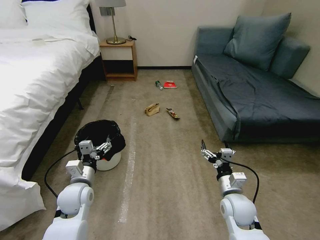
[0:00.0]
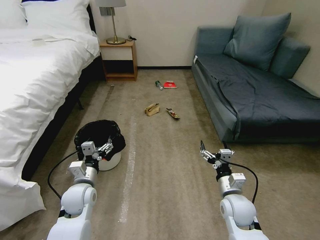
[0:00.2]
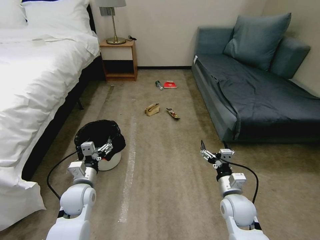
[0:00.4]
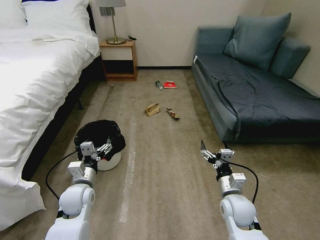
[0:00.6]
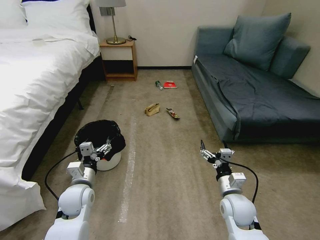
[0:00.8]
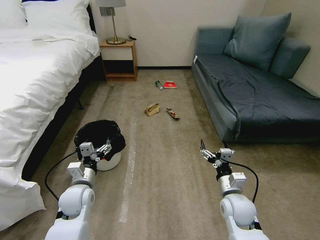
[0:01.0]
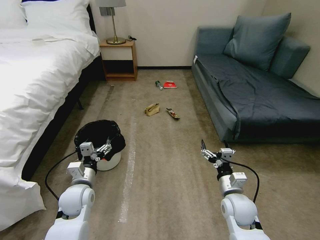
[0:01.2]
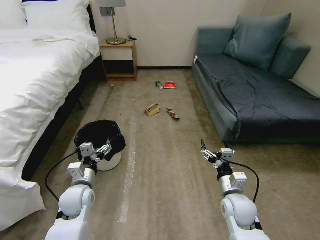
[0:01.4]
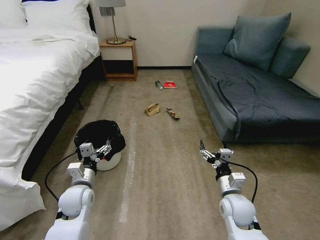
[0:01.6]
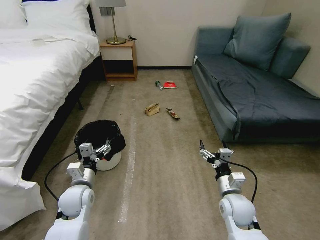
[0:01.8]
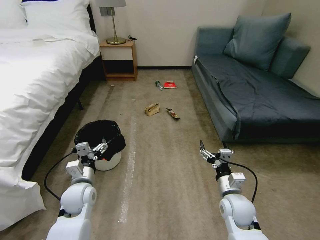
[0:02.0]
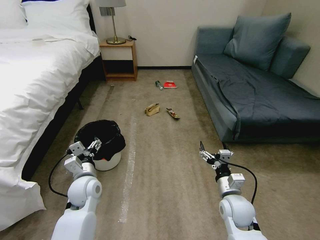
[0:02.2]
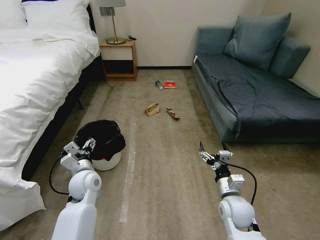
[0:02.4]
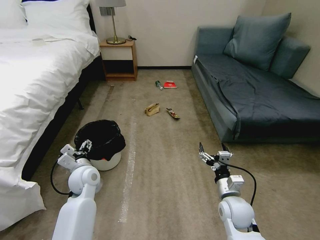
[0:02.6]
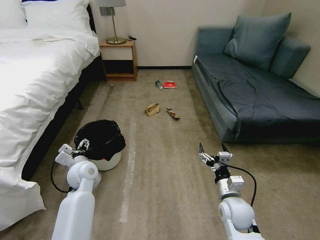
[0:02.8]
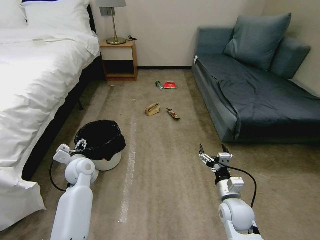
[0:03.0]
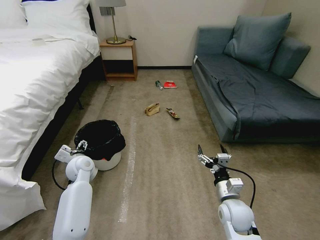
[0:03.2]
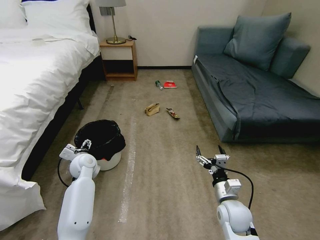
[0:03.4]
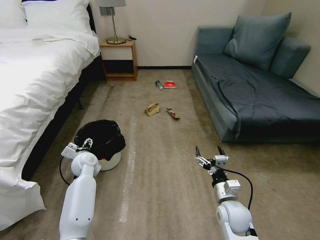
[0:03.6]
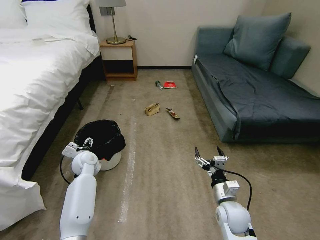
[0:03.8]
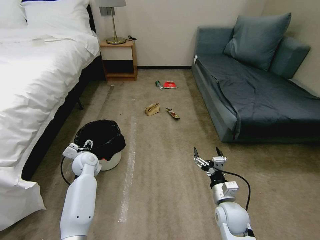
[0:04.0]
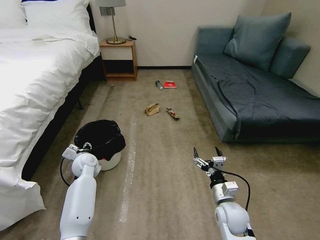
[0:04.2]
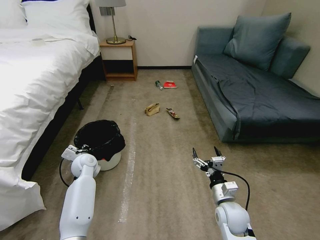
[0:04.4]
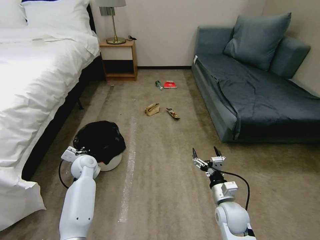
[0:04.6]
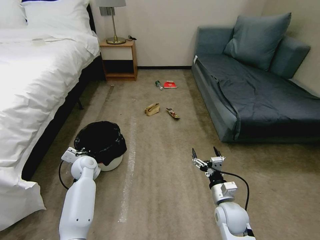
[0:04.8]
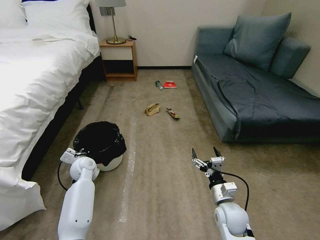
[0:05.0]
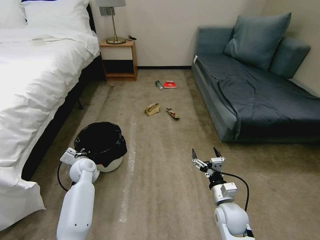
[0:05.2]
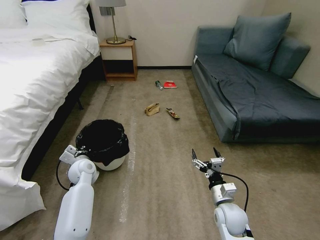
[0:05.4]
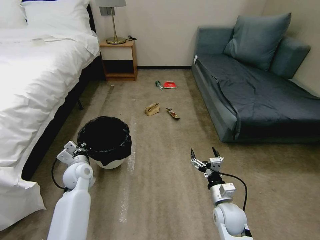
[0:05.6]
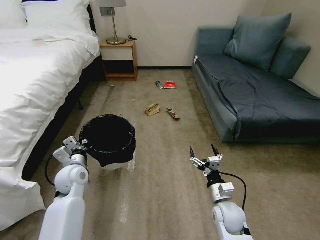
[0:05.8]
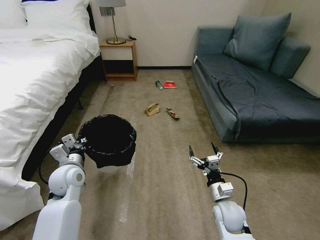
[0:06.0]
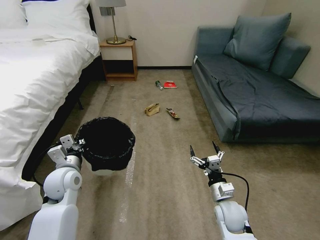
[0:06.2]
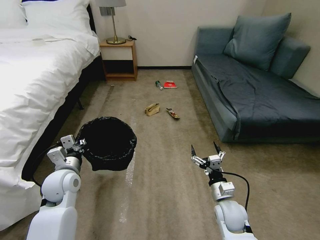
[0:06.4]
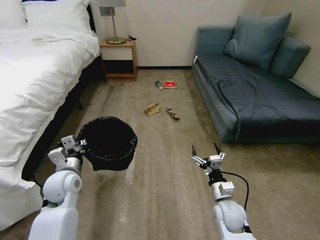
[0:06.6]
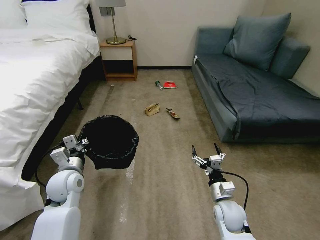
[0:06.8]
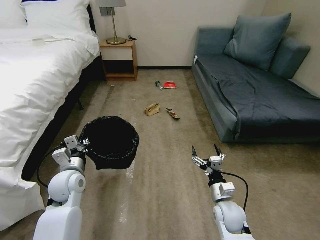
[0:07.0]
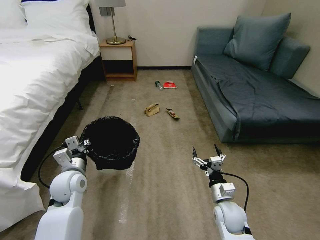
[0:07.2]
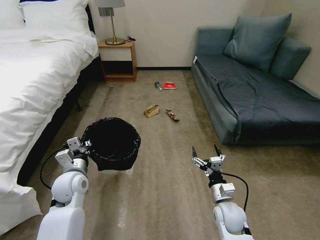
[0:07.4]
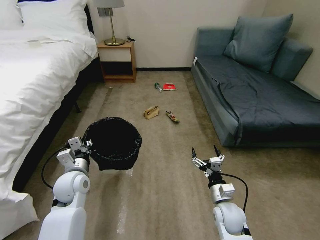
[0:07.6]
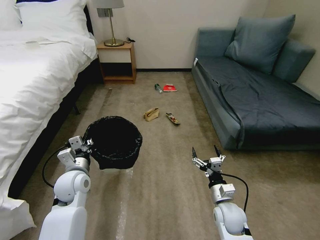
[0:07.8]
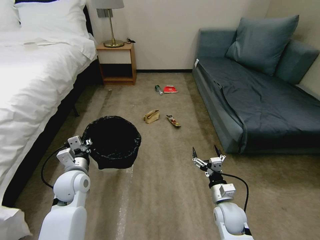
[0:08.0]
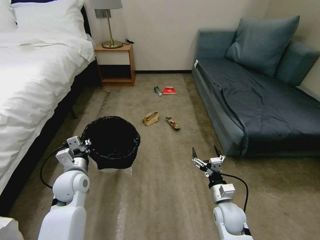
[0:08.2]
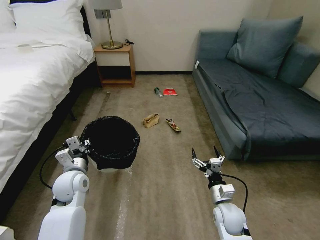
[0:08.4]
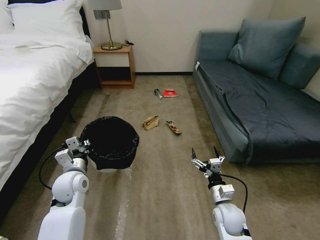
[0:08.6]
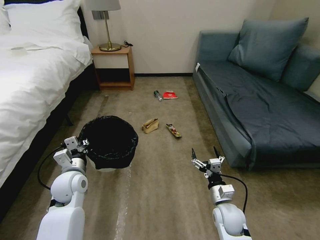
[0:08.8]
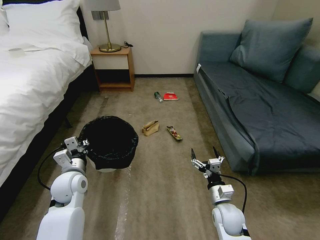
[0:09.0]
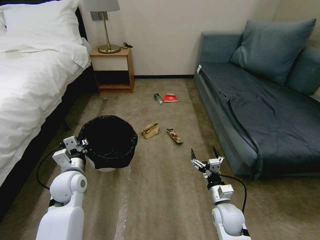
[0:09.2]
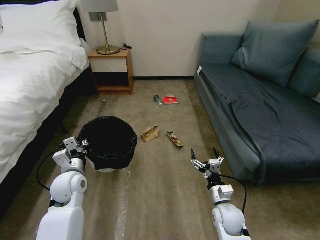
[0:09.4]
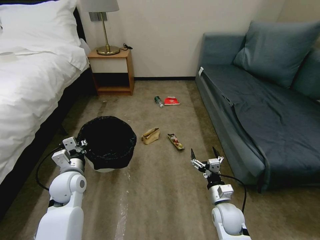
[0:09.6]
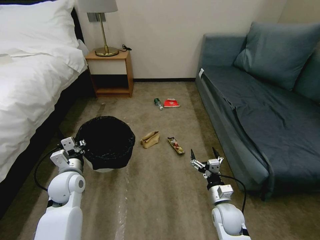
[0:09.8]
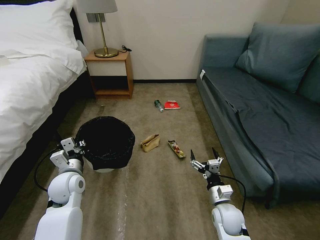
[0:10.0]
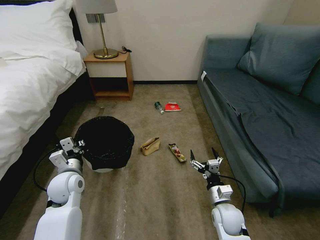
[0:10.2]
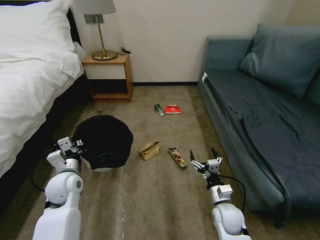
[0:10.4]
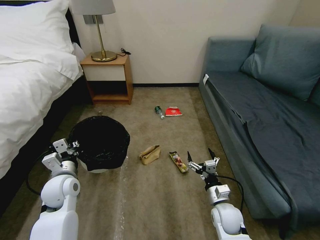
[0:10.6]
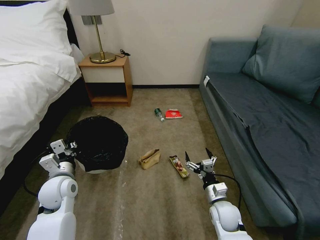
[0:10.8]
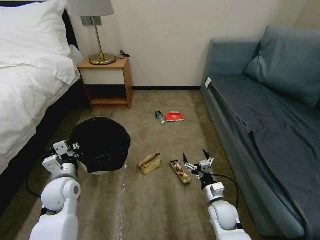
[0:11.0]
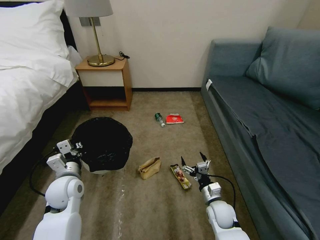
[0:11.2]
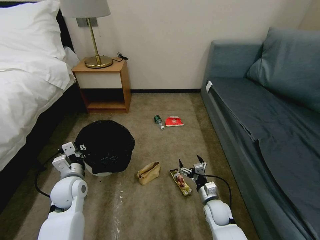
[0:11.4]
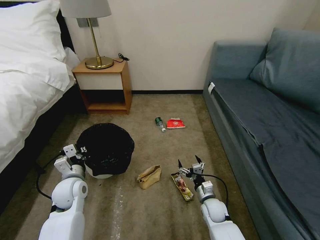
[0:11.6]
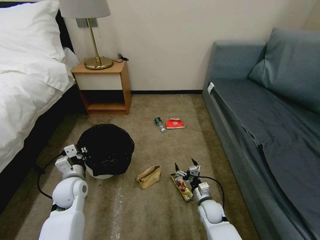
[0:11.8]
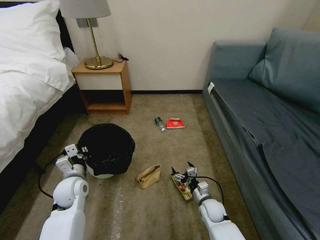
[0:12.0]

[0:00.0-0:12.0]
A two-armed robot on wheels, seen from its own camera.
Task of the whole recording: Pick up the trash bin, then pick up the garbage on the floor and place it into the trash bin.
0:01.6 to 0:03.0: The left gripper shifts some 10 cm forward.
0:03.0 to 0:04.4: The left gripper changes place by some 5 cm, and closes.
0:04.4 to 0:06.0: The left gripper travels backward and upward by roughly 15 cm.
0:06.0 to 0:07.6: The grippers move only a little.
0:10.4 to 0:12.0: The right gripper moves downward, approximately 10 cm.

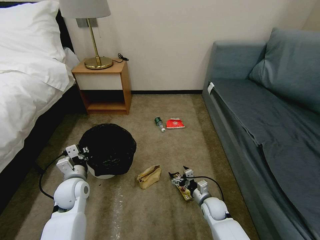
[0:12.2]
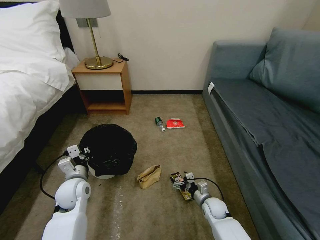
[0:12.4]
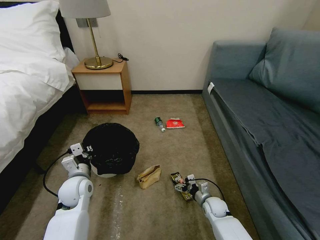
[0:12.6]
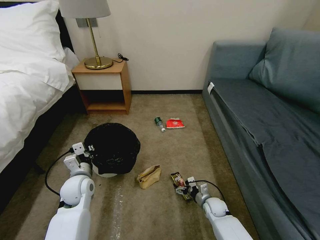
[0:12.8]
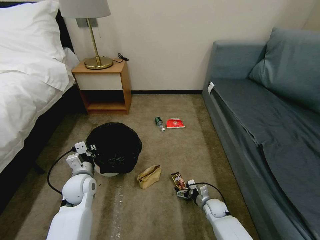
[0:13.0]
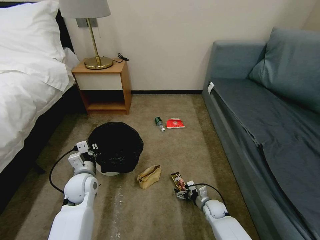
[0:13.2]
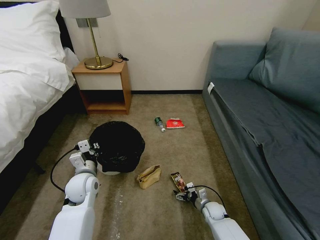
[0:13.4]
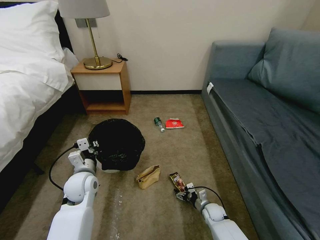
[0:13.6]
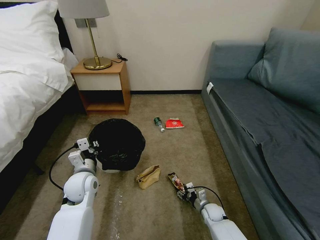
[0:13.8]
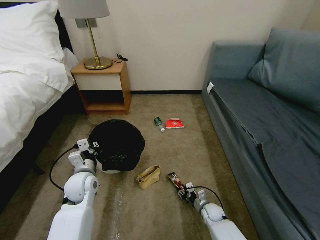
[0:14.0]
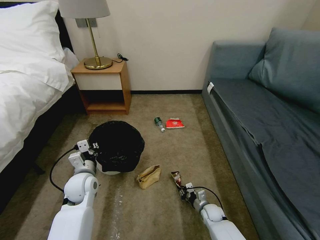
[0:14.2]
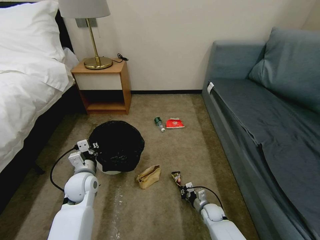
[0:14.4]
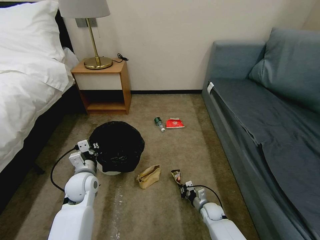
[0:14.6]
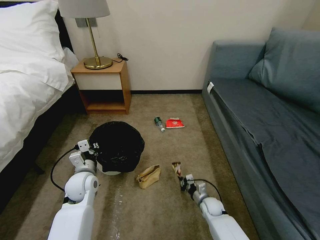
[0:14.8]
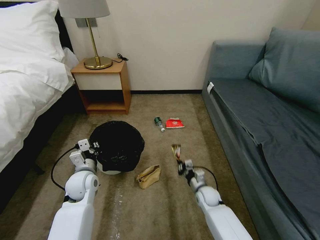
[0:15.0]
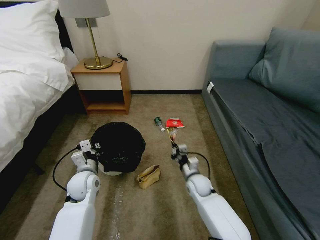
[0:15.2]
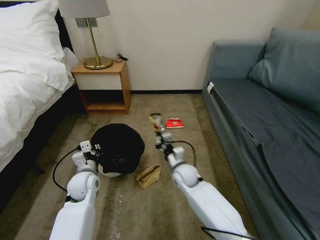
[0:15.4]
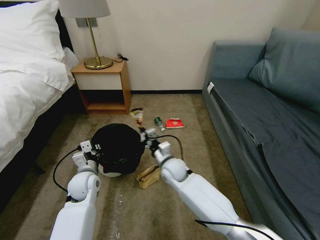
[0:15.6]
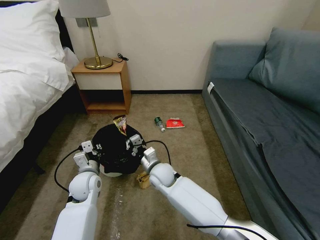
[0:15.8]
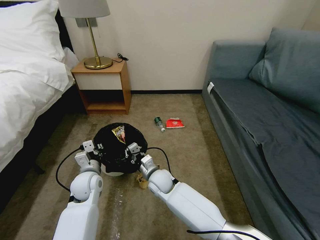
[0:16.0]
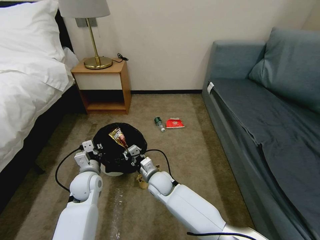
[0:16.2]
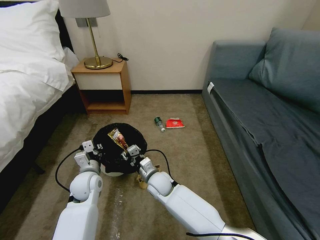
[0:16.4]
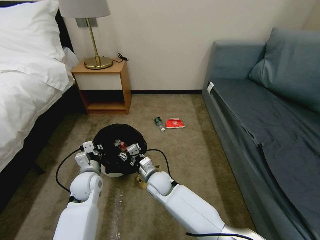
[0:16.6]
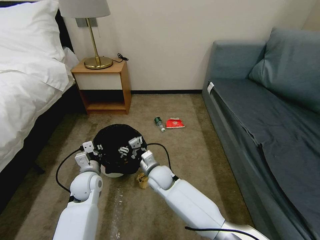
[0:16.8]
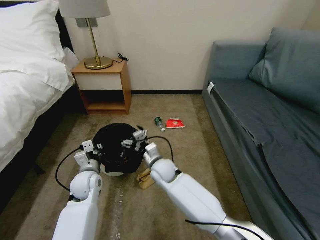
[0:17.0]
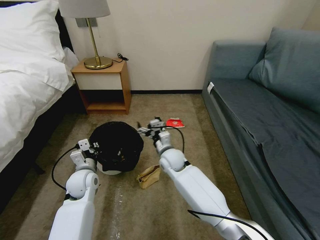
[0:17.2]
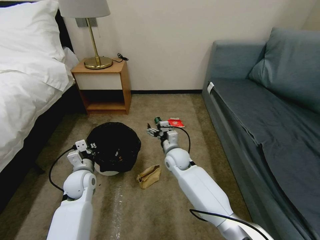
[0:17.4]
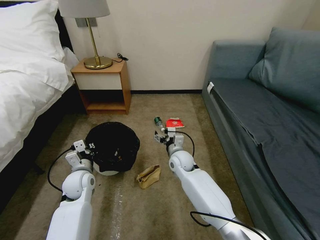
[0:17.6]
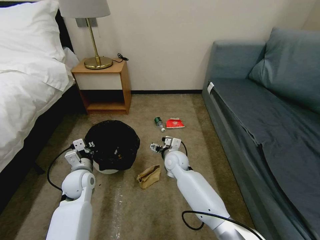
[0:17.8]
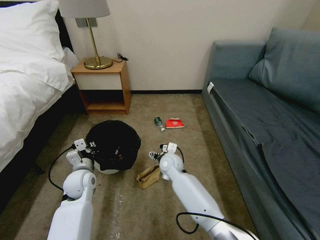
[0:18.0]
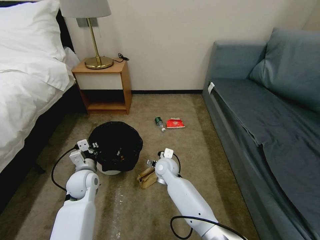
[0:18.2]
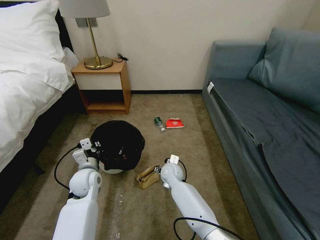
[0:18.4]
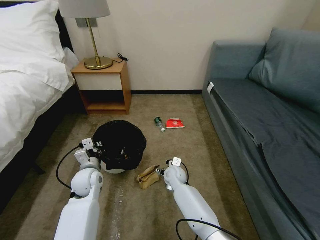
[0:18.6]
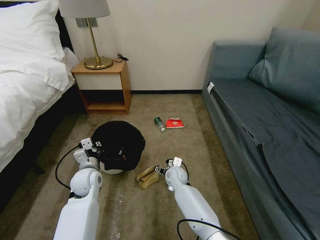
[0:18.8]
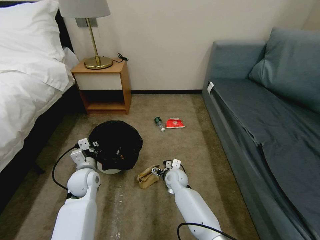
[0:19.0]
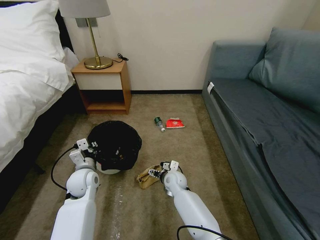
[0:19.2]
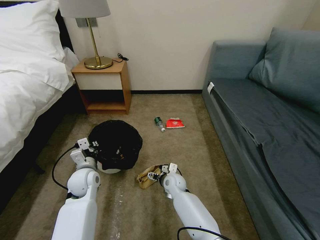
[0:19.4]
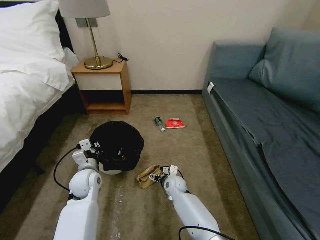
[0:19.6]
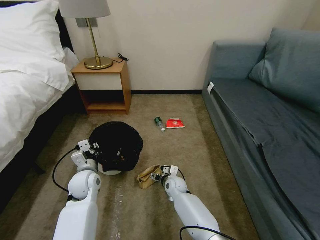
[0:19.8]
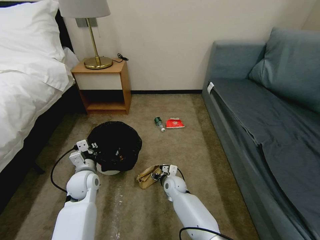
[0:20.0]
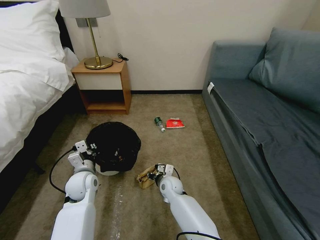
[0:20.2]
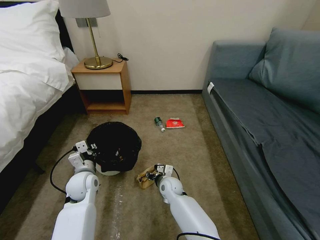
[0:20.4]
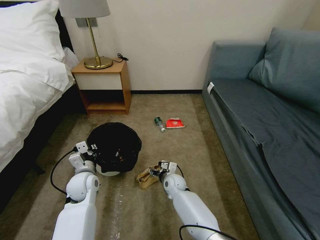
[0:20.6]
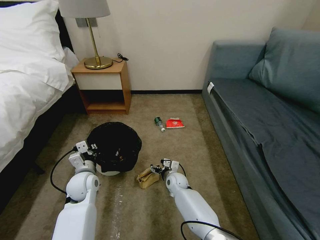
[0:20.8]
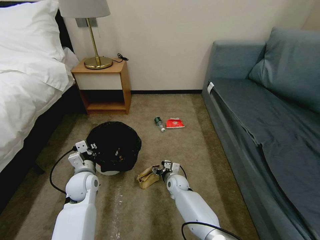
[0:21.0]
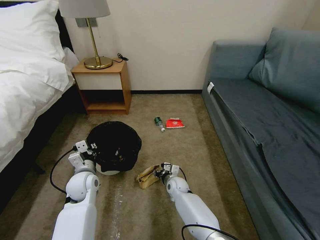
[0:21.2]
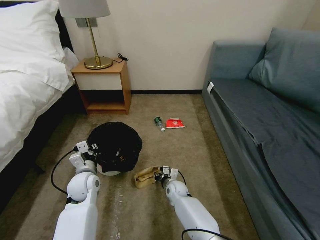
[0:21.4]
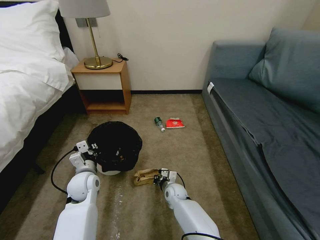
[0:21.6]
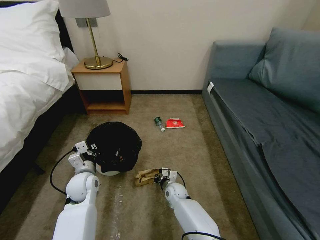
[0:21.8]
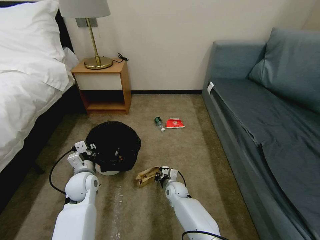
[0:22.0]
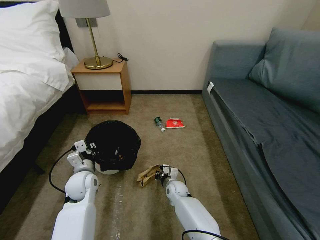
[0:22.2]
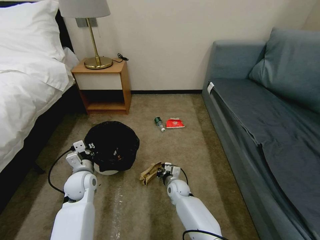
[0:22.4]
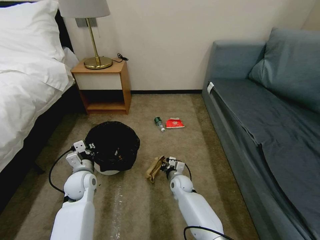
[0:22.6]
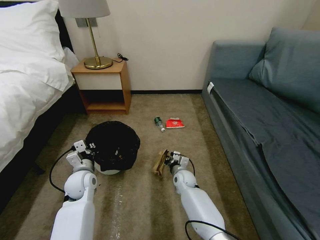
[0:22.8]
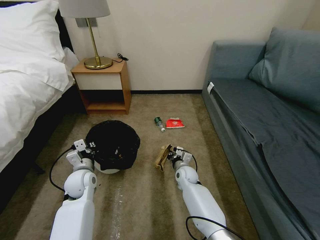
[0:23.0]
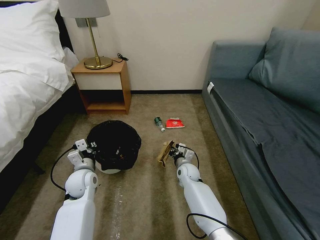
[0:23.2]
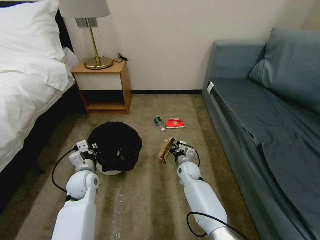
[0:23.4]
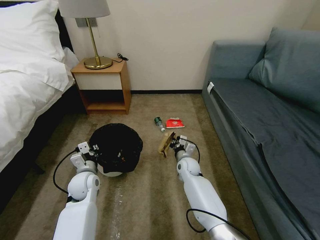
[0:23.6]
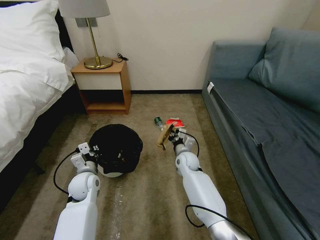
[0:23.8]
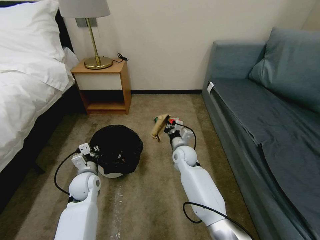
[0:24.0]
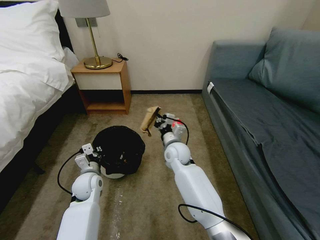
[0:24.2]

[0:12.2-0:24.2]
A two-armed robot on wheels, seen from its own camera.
Task of the whole recording: Pick up the trash bin, then pick up the garbage on the floor and place it into the trash bin.
0:12.2 to 0:13.8: The right gripper moves downward, about 10 cm.
0:13.8 to 0:15.2: The right gripper heads upward, to the left and forward, covering about 20 cm, and closes up.
0:15.2 to 0:16.6: The right gripper goes approximately 15 cm to the left, and opens.
0:16.6 to 0:18.2: The right gripper moves forward, some 5 cm, travels to the right and back again, about 10 cm each way, and opens up.
0:18.2 to 0:19.8: The right gripper goes roughly 10 cm downward.
0:19.8 to 0:21.2: The grippers stay close to where they were, moving slightly.
0:21.2 to 0:22.6: The right gripper closes up.
0:22.6 to 0:24.2: The right gripper is displaced upward by some 20 cm.
